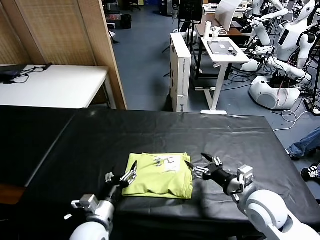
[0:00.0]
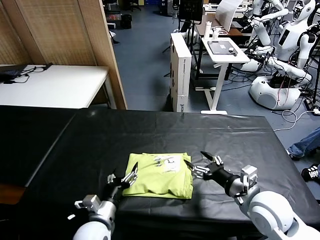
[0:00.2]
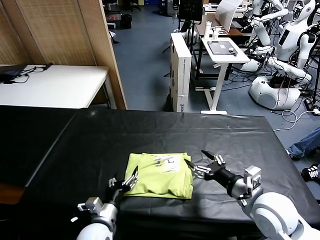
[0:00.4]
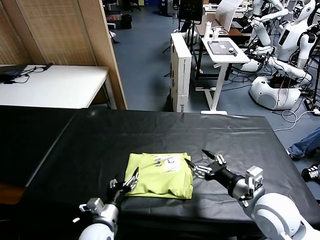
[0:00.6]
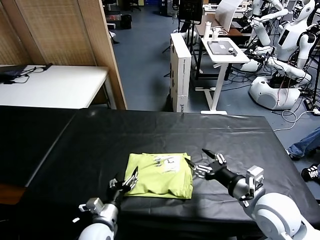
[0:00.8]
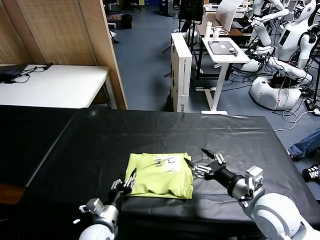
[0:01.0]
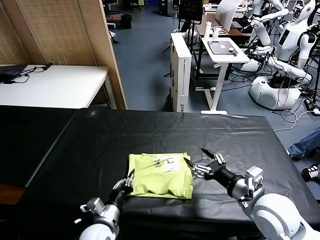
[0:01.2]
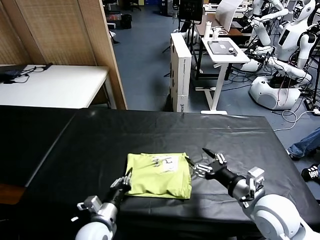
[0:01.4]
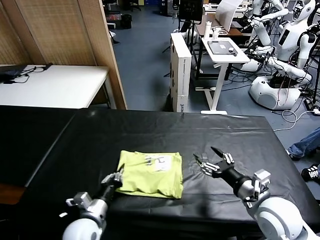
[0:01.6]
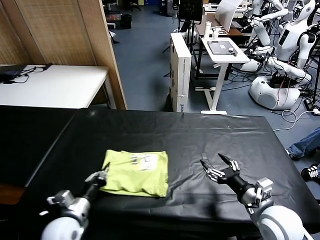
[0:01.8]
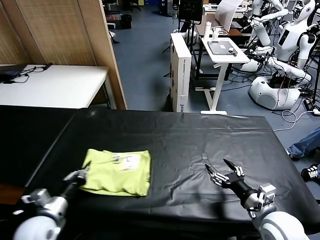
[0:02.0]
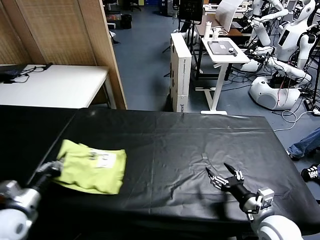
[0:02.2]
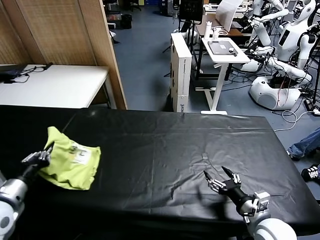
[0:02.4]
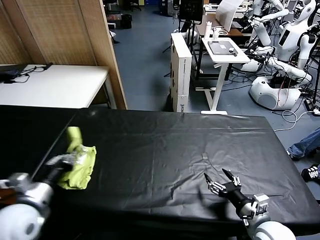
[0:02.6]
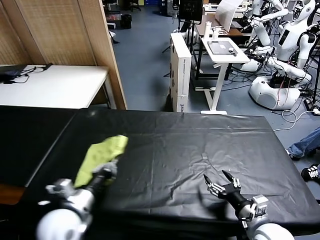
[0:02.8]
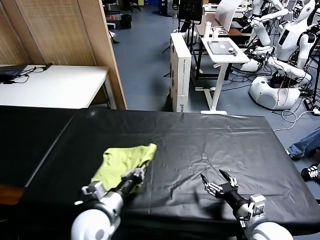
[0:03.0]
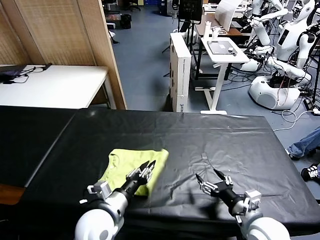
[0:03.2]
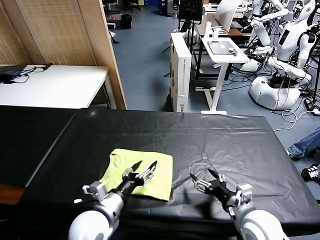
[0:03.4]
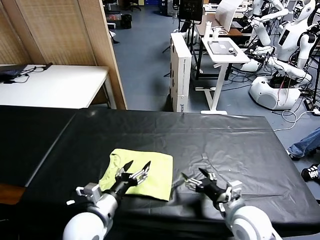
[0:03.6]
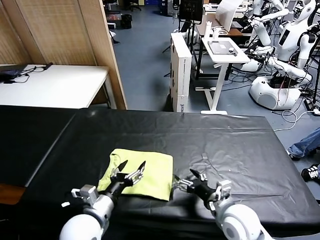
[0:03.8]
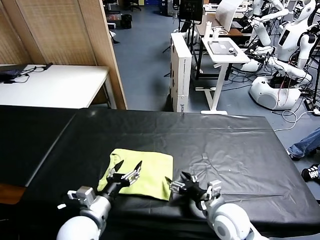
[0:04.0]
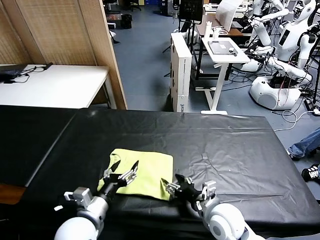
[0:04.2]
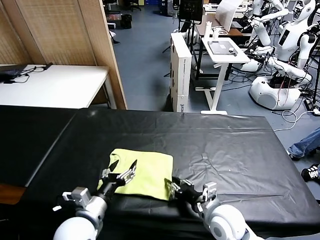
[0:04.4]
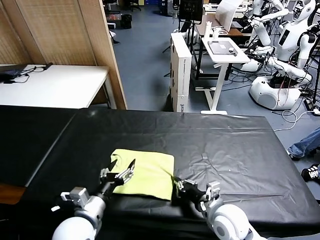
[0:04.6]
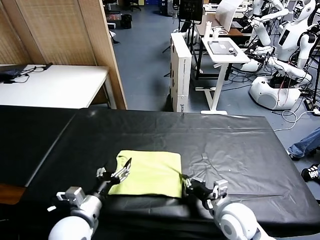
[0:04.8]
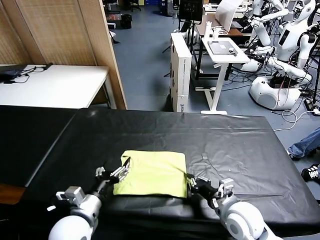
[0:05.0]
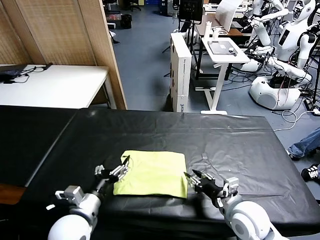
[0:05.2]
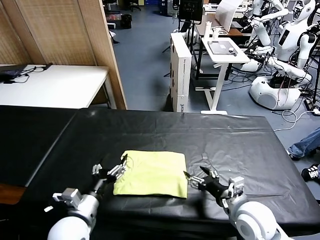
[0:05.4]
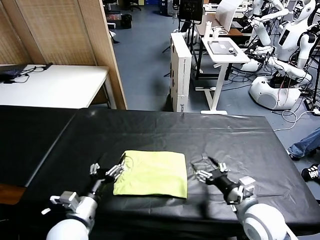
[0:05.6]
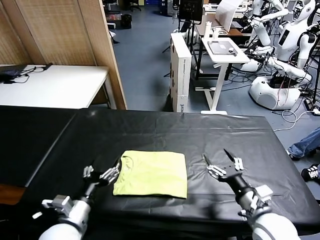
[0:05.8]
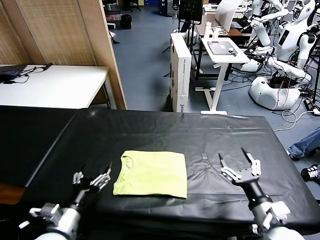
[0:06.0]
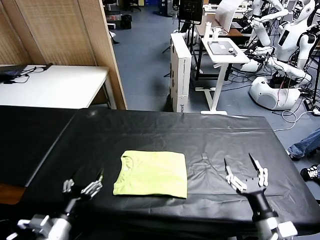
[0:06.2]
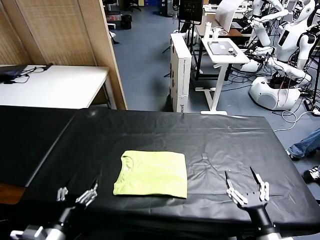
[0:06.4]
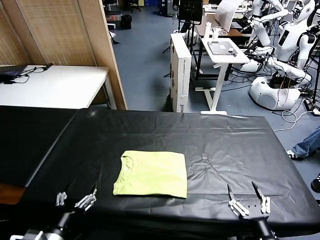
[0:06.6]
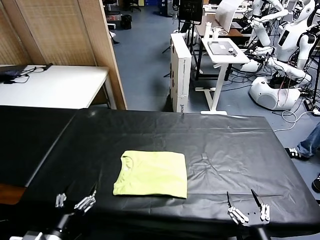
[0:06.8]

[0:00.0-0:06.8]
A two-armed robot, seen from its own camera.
Task of the whole recording: fold and organize the clothes.
Step, 0:00.0 to 0:03.2: Flip the folded clothes over with left gripper.
Step, 0:03.4 to 0:05.2: Drag the clothes to the center of the table.
0:00.0 to 0:01.4: The left gripper closes its fingers.
0:01.4 to 0:02.8: The left gripper is displaced upward by roughly 10 cm, and moves roughly 20 cm to the left and comes back. The right gripper moves downward, some 10 cm.
0:02.8 to 0:04.0: The right gripper goes roughly 10 cm to the left and forward, while the left gripper shifts about 5 cm to the right, and opens up.
0:04.0 to 0:05.4: The right gripper moves some 5 cm, and closes and opens again.
0:05.4 to 0:06.8: The left gripper moves backward and to the left, some 10 cm; the right gripper moves backward, some 15 cm.

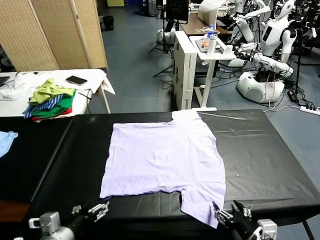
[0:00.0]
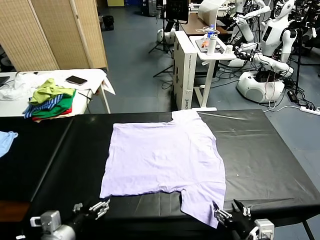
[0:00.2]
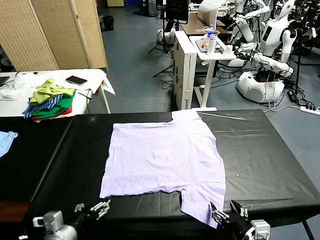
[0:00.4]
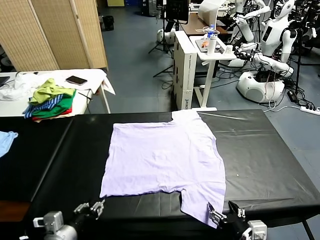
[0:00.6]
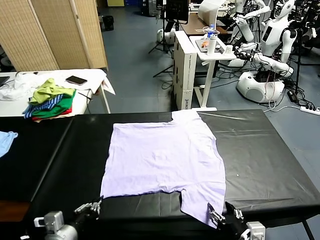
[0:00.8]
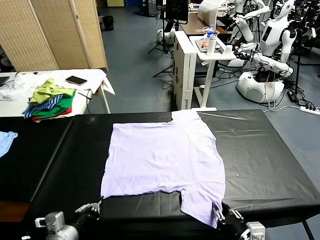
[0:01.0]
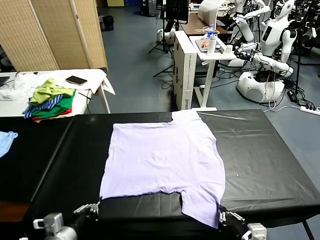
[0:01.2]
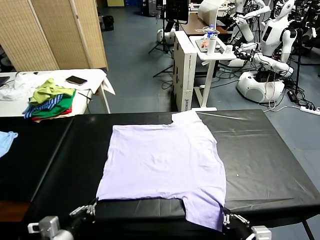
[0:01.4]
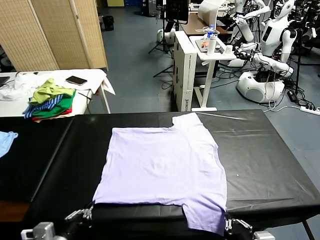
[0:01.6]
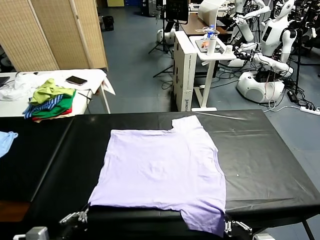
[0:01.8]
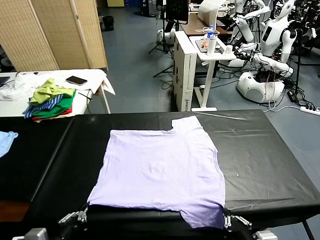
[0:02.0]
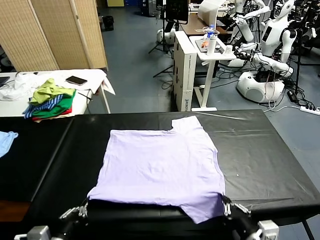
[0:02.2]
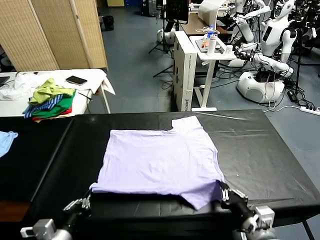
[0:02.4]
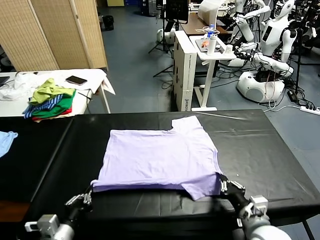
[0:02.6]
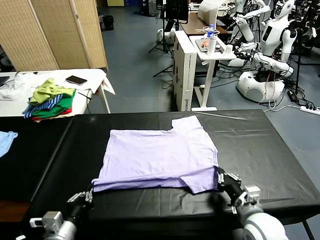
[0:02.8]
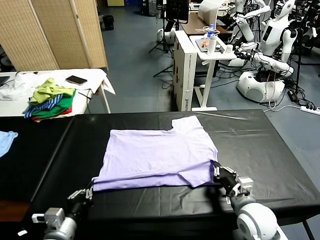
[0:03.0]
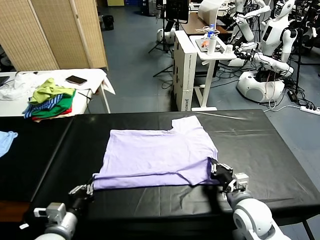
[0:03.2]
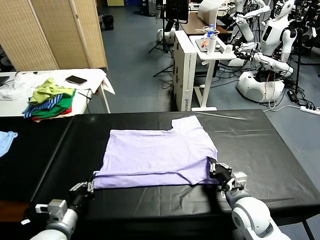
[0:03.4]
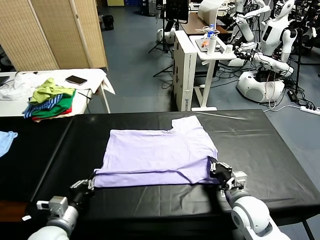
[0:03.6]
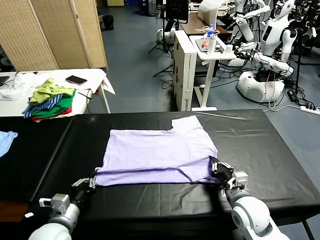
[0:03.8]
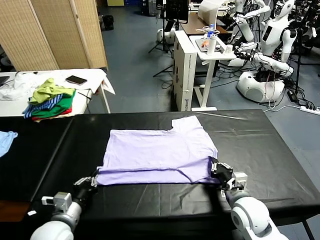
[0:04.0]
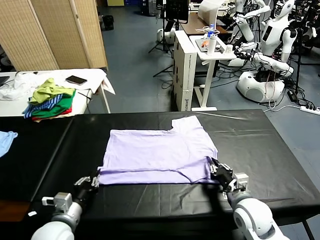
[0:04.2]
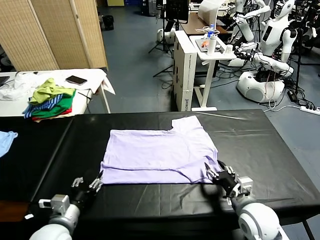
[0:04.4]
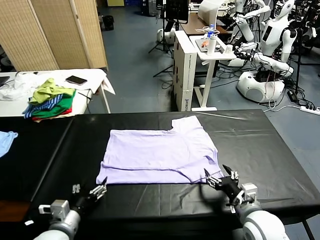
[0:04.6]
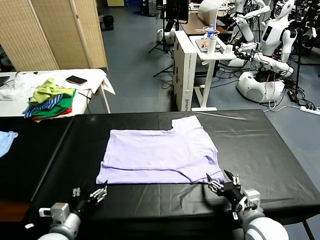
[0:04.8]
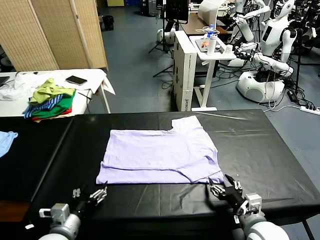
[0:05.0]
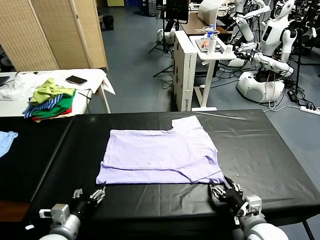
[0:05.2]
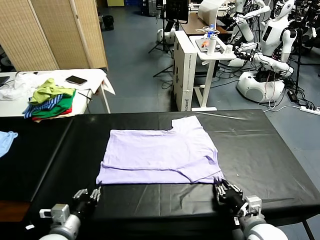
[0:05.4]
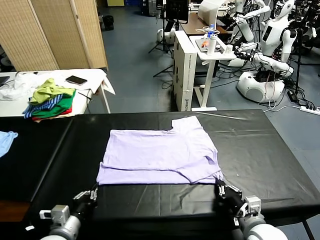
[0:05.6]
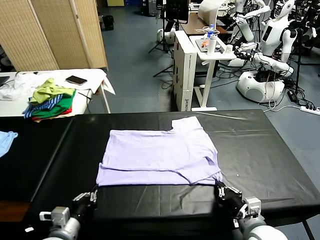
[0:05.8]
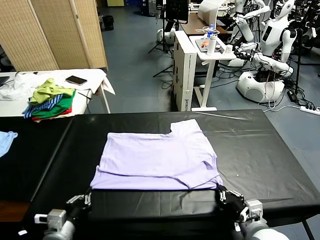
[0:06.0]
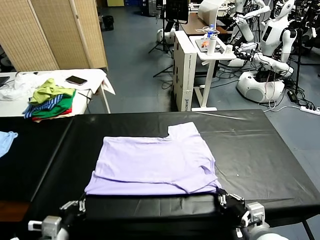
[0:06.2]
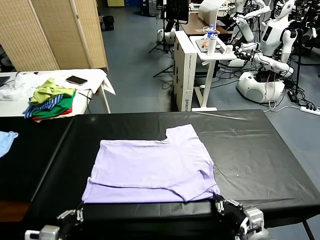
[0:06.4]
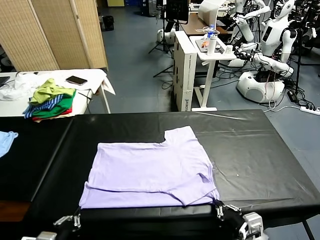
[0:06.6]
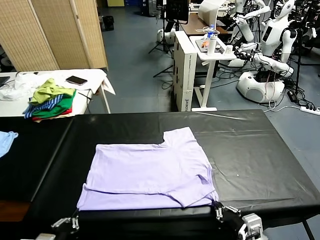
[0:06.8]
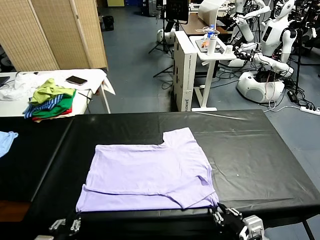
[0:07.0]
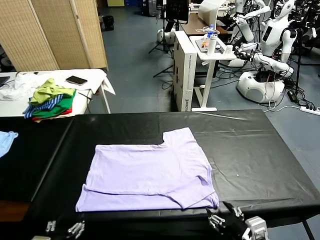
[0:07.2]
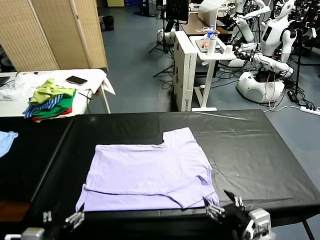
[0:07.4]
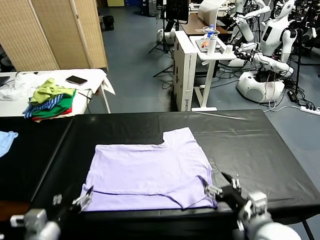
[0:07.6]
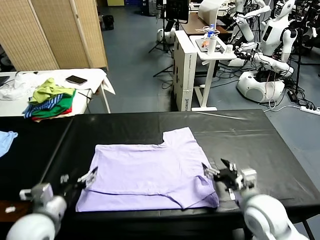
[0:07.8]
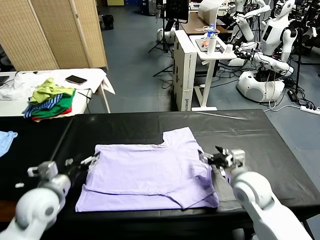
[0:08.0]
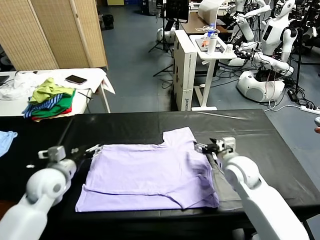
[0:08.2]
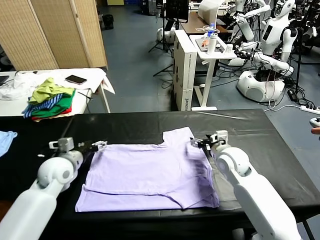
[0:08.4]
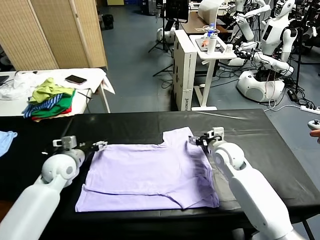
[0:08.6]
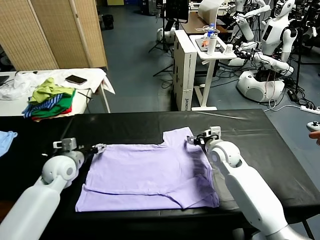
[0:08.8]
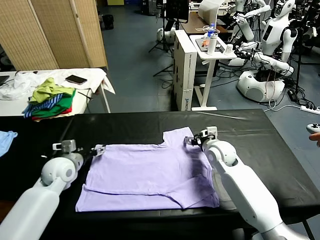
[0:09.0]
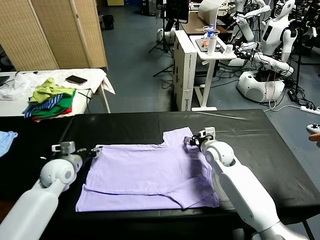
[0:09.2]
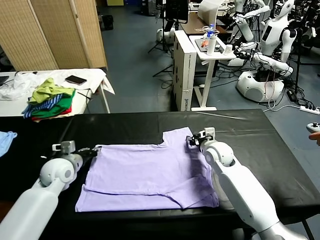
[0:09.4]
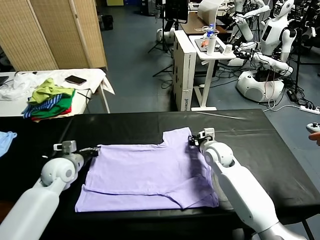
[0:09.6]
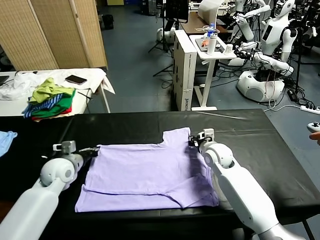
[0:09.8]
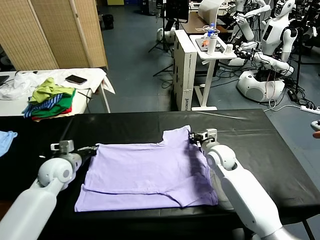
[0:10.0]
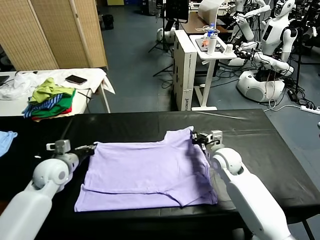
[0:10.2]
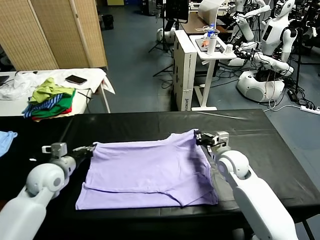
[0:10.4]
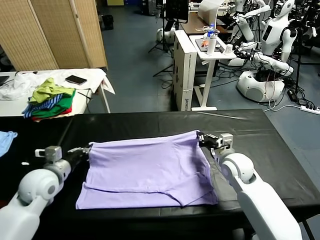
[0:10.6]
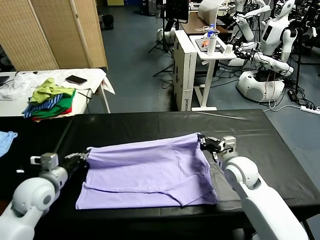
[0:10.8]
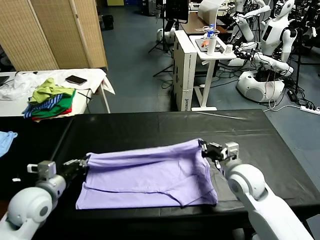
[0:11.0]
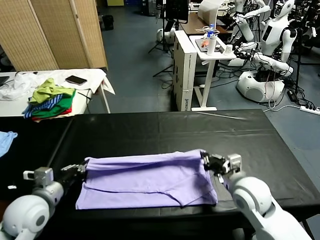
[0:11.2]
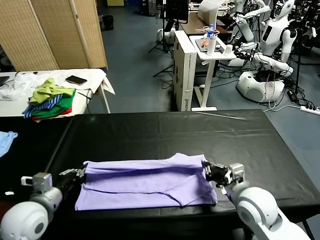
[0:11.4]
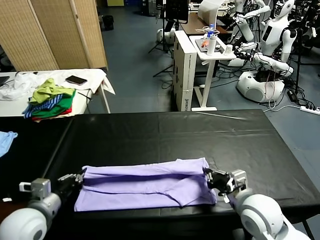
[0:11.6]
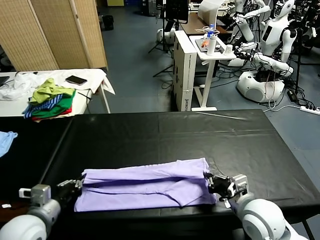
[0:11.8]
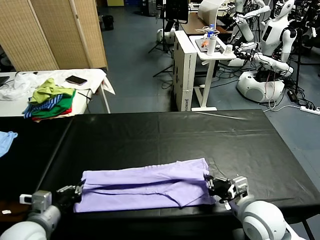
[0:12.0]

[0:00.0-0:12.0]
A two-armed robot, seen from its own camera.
Task of the whole recording: fold and organize the clothes.
Step, 0:00.0 to 0:01.2: use both grippers simultaneously to clamp the lower edge of the clothing fabric.
Step, 0:01.4 to 0:04.4: use both grippers to drag the lower edge of the fabric forward and fold it over the upper edge.
Step, 0:04.6 to 0:07.2: Drag the clothes downward with both gripper.
Step, 0:07.4 to 0:09.8: use both grippers simultaneously to clamp the upper edge of the clothing fabric.
0:01.6 to 0:03.0: The left gripper moves forward, roughly 5 cm. Meanwhile the right gripper shifts about 20 cm forward.
0:03.0 to 0:04.4: The right gripper opens up. The left gripper opens up.
0:04.4 to 0:06.0: The right gripper moves backward, about 5 cm, and closes. Meanwhile the left gripper closes its fingers.
0:06.0 to 0:07.6: The left gripper moves upward, roughly 5 cm, goes backward and returns, about 5 cm each way, and opens its fingers, while the right gripper shifts some 10 cm forward, and opens up.
0:07.6 to 0:09.0: The grippers both shift forward by some 20 cm.
0:09.0 to 0:10.4: The two grippers go about 5 cm backward. The right gripper closes up; the left gripper closes.
0:10.4 to 0:12.0: Both grippers travel together backward, some 15 cm.

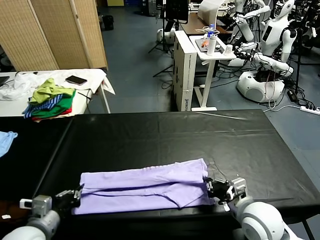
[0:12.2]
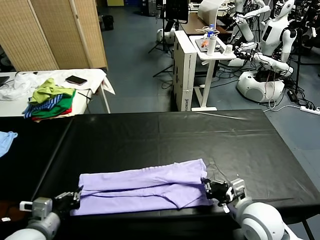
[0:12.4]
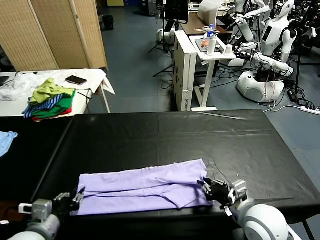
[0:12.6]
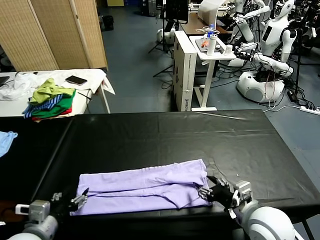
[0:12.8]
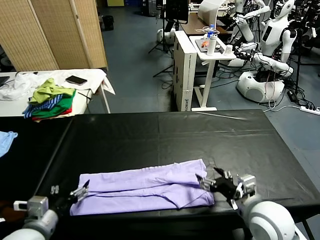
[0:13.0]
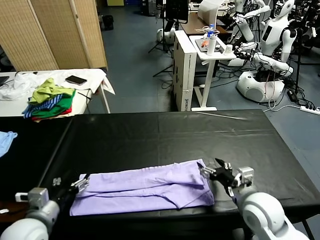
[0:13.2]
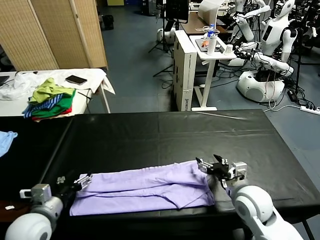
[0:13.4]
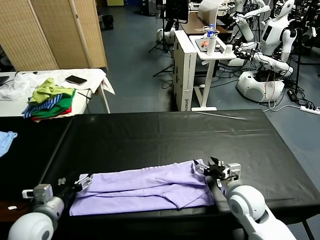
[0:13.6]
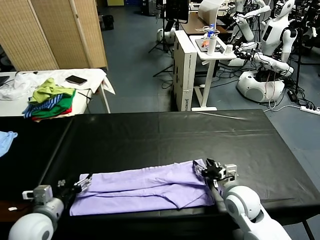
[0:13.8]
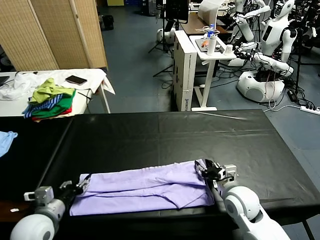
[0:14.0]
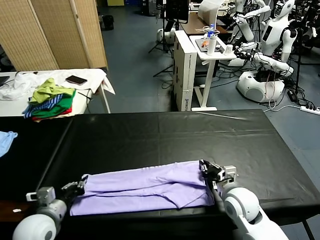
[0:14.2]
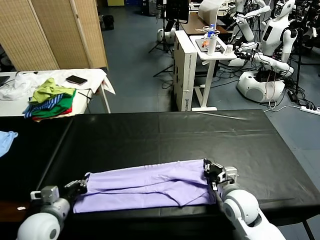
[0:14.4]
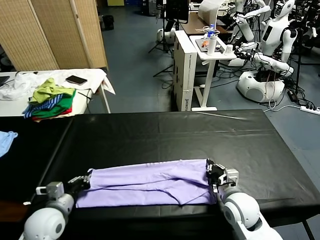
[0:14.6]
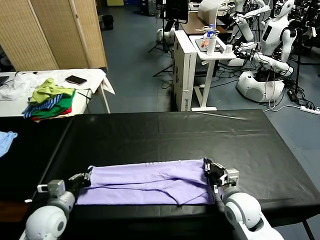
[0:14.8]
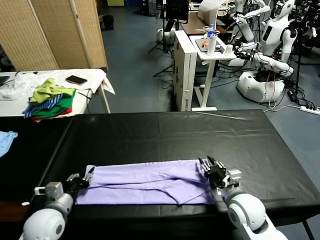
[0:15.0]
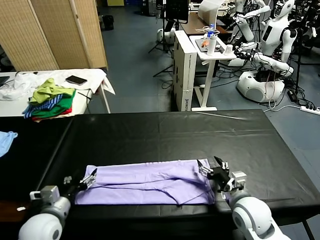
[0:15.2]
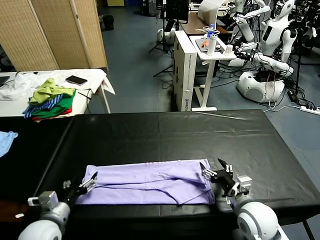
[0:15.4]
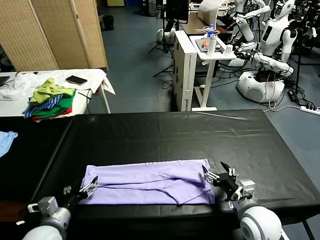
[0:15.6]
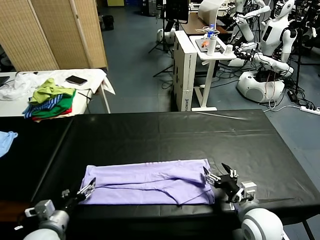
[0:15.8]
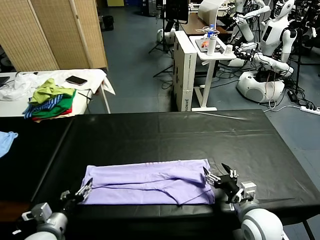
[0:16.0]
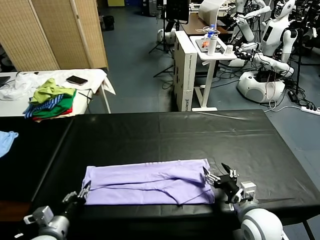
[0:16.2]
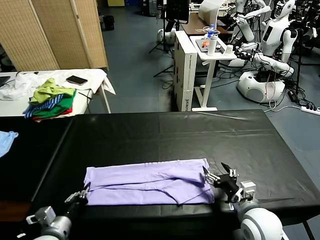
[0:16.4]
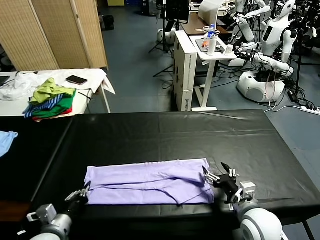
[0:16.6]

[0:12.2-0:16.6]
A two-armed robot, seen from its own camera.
Task of the whole recording: fold and organize the clothes.
Step, 0:13.0 to 0:16.4: use the left gripper to clamp the left edge of the fabric.
0:12.2 to 0:13.6: The left gripper opens its fingers. Meanwhile the right gripper travels forward by some 5 cm, and opens its fingers.
0:13.6 to 0:15.2: The left gripper closes, then reopens; the right gripper closes and opens again.
0:15.2 to 0:16.6: The left gripper closes.
